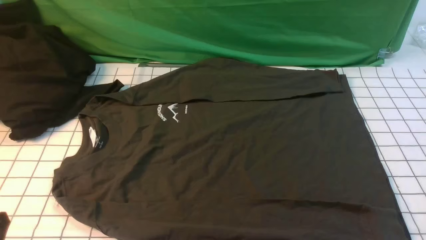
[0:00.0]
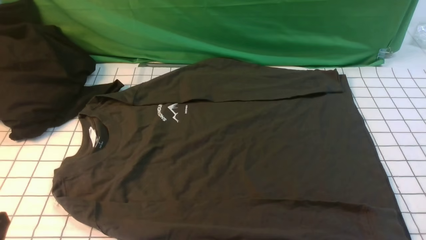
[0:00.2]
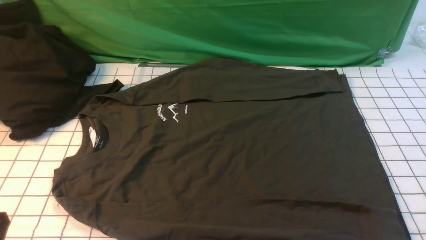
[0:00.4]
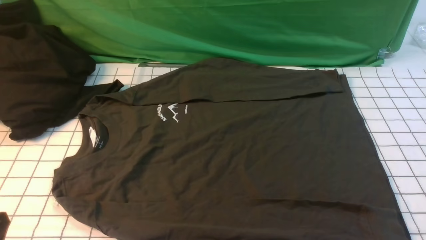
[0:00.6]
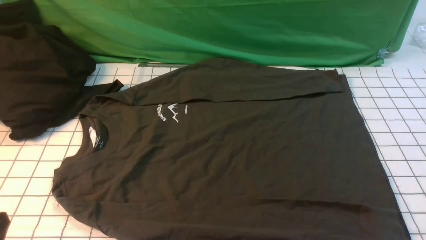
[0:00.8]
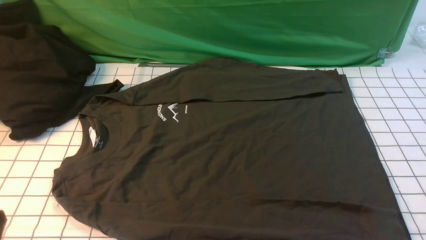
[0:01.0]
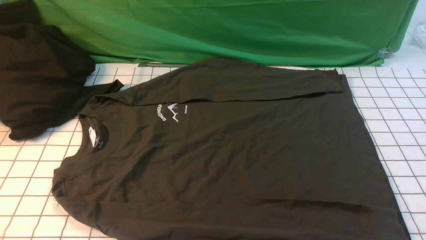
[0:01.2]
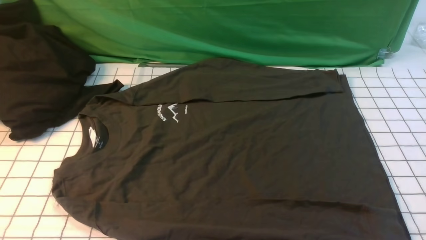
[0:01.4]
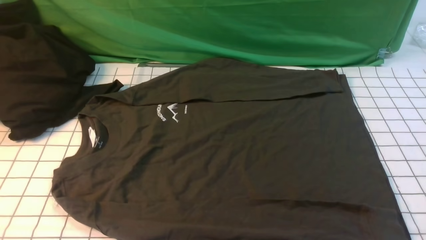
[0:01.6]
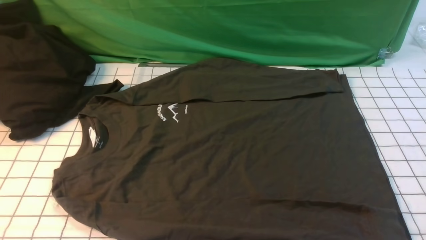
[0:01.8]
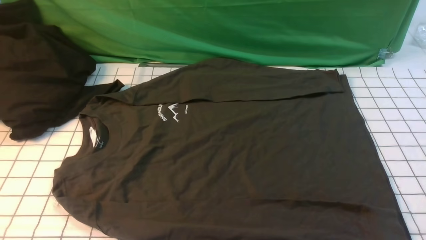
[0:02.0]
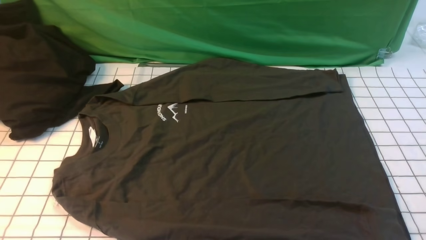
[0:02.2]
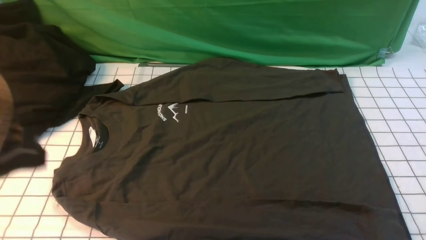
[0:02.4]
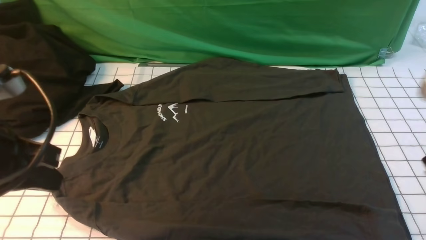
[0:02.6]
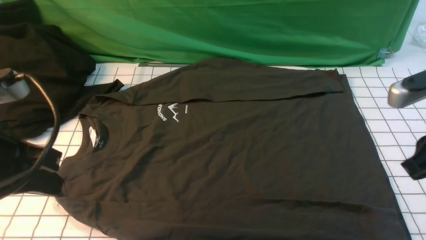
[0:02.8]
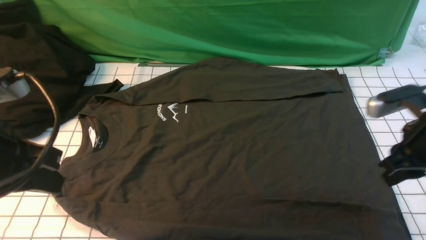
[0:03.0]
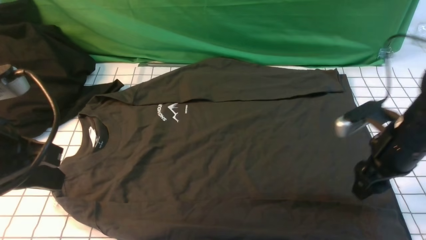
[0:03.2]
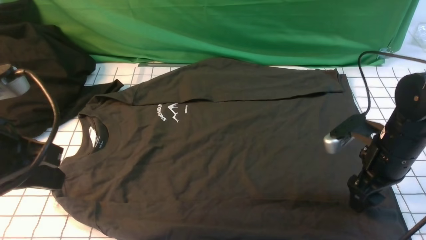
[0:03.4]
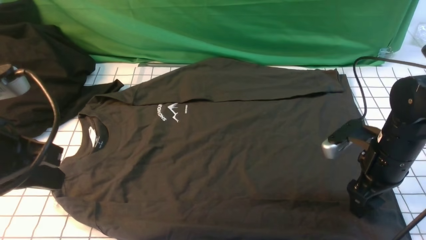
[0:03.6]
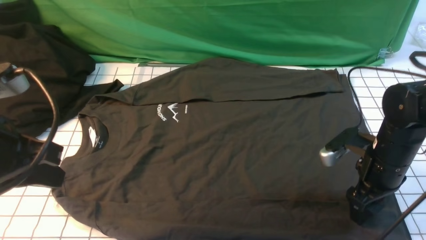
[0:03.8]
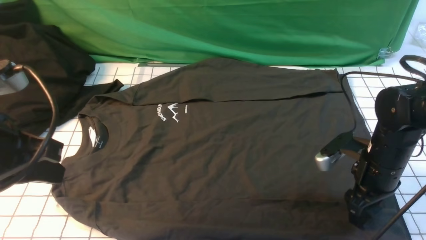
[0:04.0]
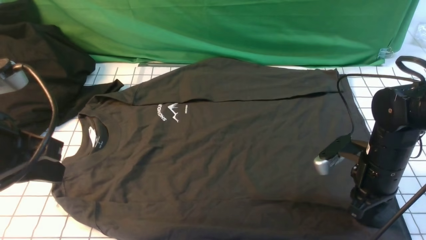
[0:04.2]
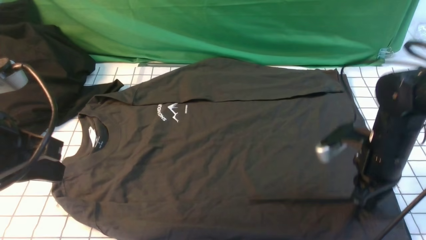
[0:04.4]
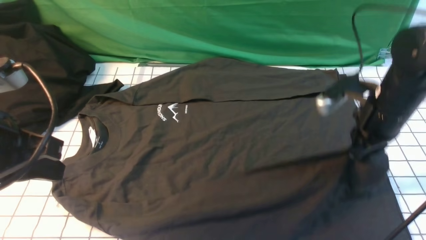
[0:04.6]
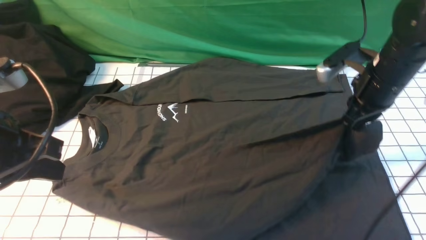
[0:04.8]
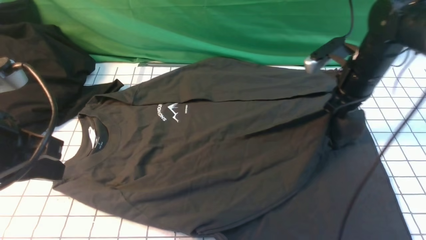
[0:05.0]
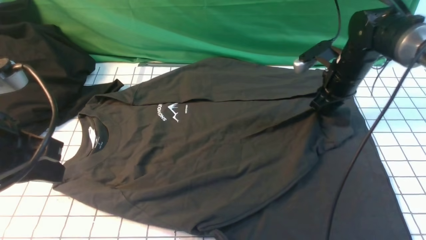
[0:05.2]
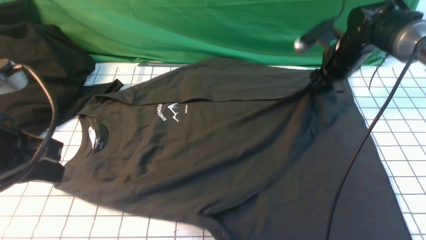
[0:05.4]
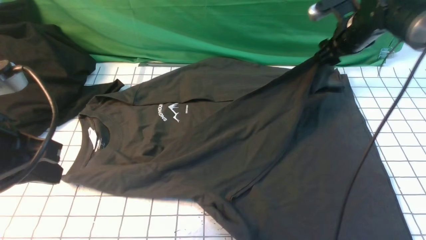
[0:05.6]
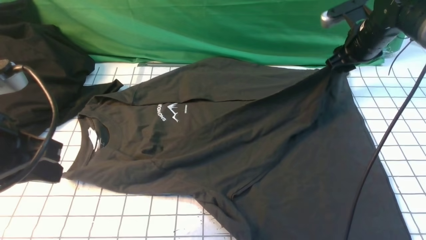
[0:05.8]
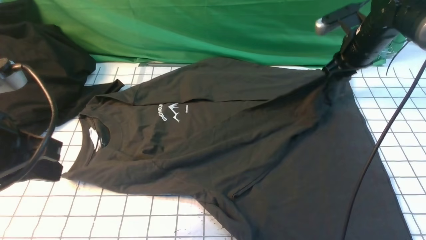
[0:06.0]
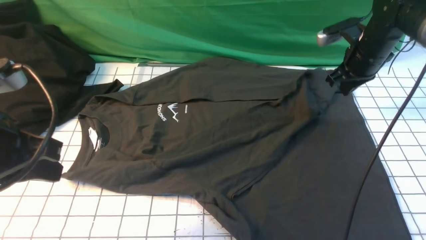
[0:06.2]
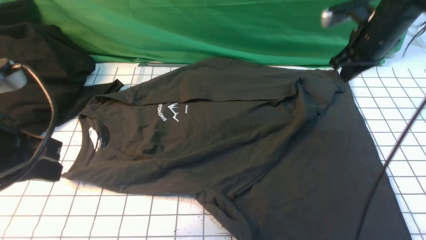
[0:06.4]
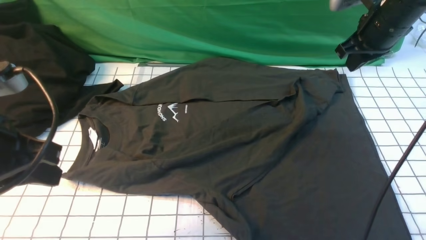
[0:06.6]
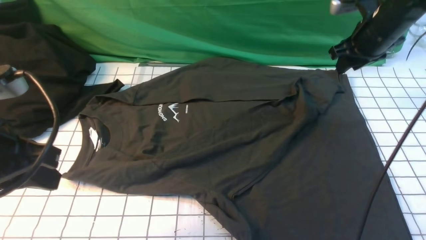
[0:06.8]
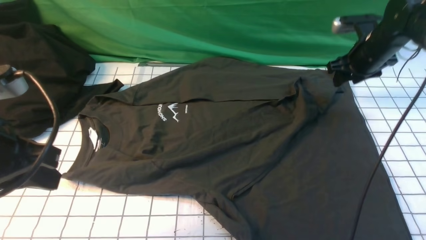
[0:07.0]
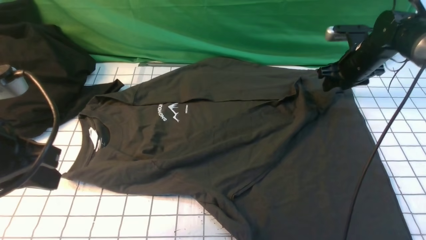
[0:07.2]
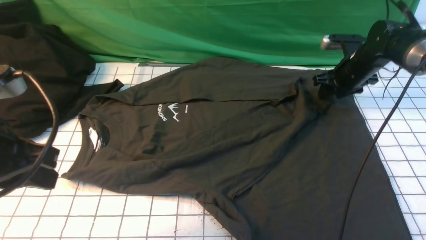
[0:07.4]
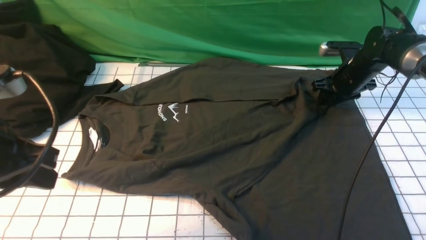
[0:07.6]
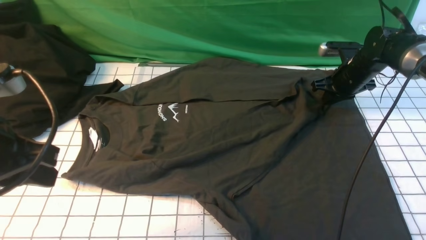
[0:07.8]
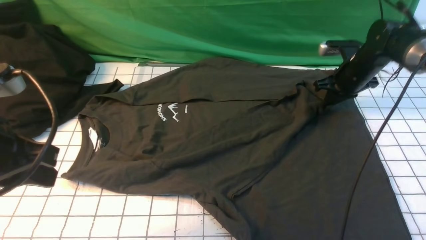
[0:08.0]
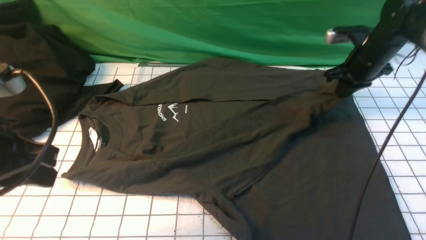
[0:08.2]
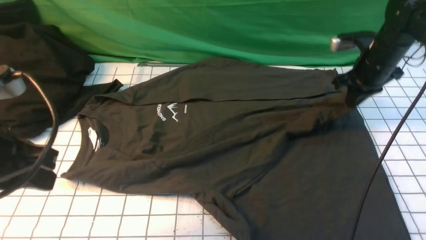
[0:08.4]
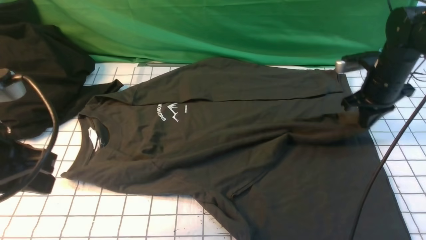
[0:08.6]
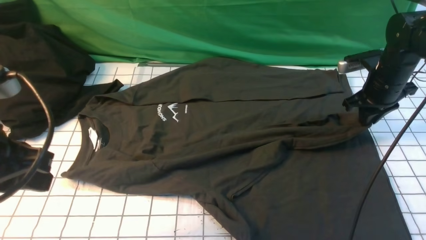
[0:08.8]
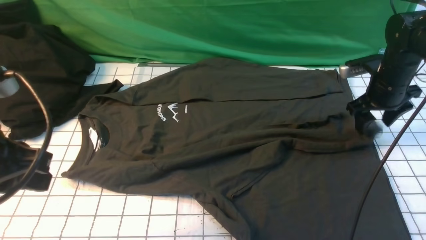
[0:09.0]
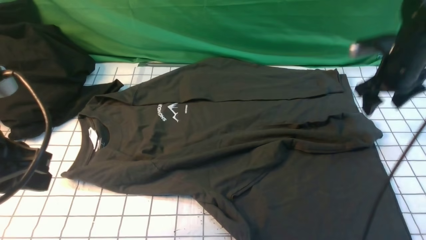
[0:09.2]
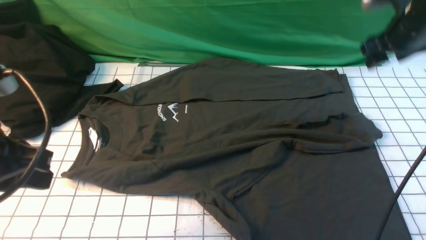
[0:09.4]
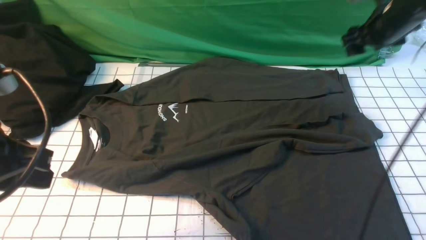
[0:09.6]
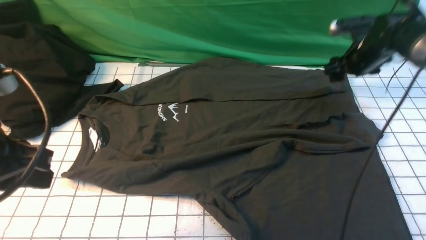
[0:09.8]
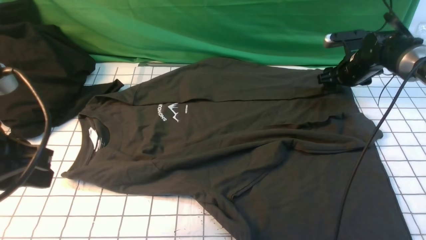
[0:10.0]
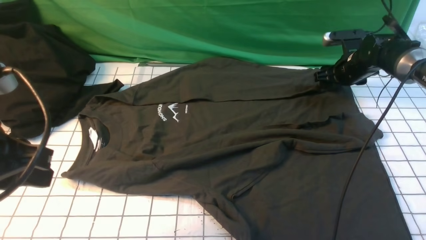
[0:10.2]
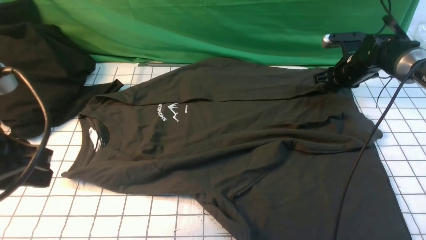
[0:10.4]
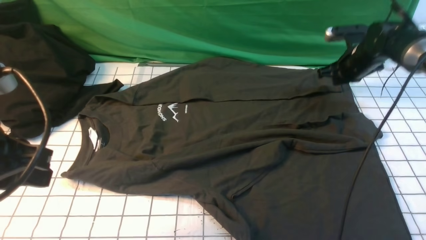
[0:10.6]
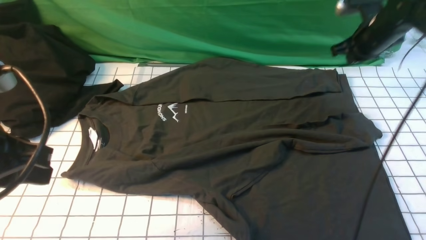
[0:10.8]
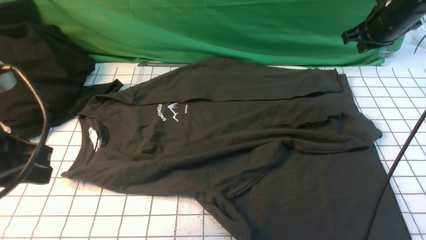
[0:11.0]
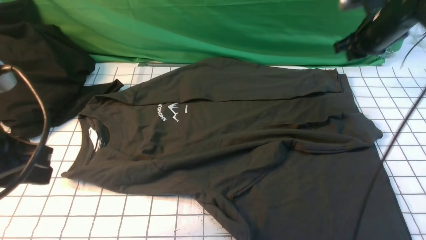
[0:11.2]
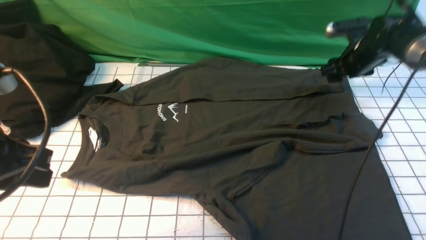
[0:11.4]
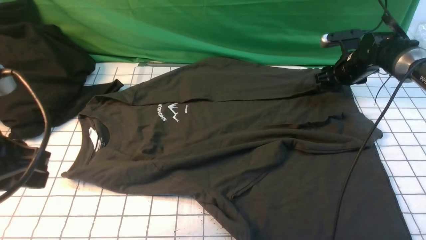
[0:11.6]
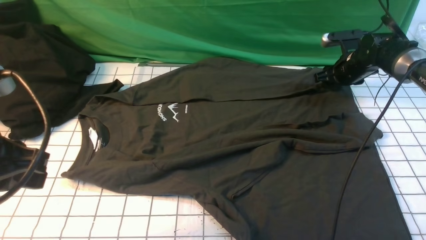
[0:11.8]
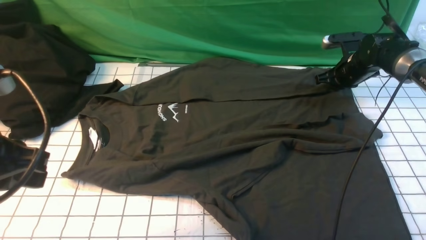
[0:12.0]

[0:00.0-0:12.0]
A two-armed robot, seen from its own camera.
Step, 0:00.0 to 0:04.4: Use your right arm to clamp the cuff closest to him.
Step, 0:04.6 to 0:06.4: use the right arm to drag and place the cuff at thecentered position on the left edge of the fabric.
0:01.6 to 0:03.0: The left gripper moves forward and upward, some 15 cm. Meanwhile the right gripper travels forward by approximately 25 cm, and closes and opens again.
0:03.0 to 0:04.4: The right gripper moves approximately 5 cm, and opens and closes again.
0:04.4 to 0:06.0: The right gripper travels forward by approximately 20 cm, and opens, then closes once more.
0:06.0 to 0:07.6: The right gripper heads downward, covering approximately 10 cm.
0:07.6 to 0:09.0: The right gripper heads backward and upward, covering some 10 cm, and opens.
0:09.0 to 0:10.4: The right gripper travels forward and downward by roughly 10 cm, and closes.
0:10.4 to 0:12.0: The right gripper travels upward and back again, some 10 cm each way, and opens, then closes again.

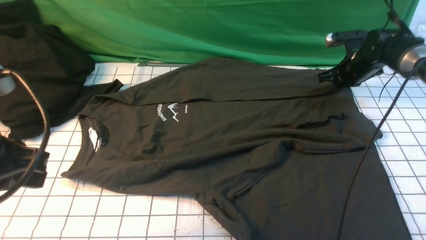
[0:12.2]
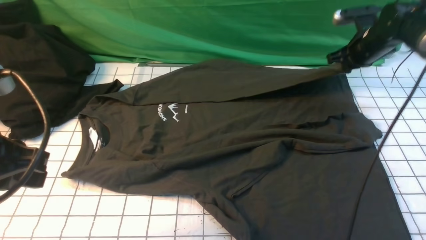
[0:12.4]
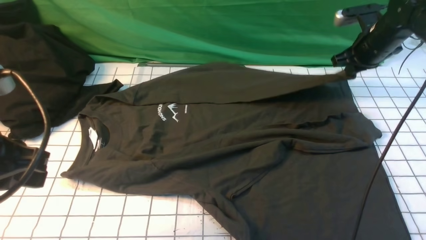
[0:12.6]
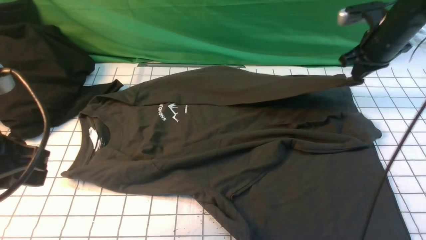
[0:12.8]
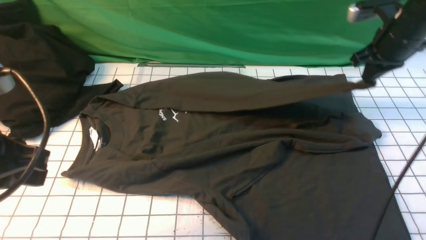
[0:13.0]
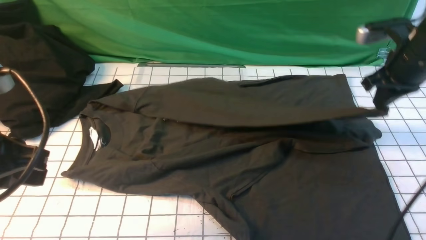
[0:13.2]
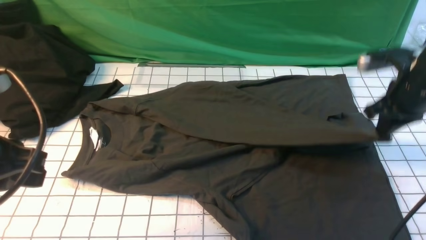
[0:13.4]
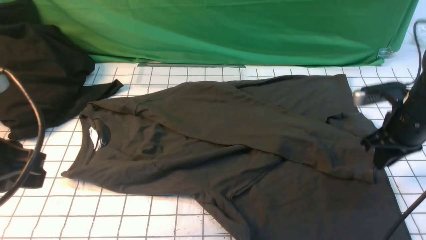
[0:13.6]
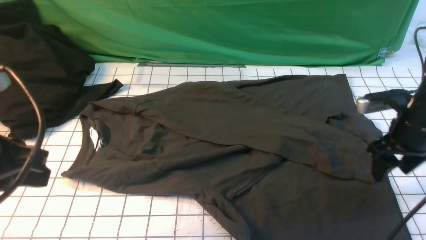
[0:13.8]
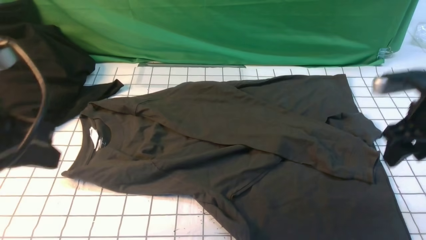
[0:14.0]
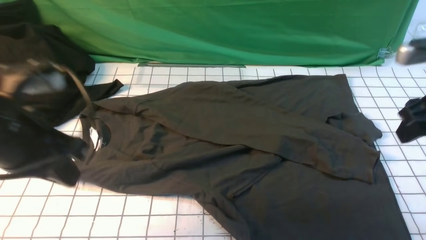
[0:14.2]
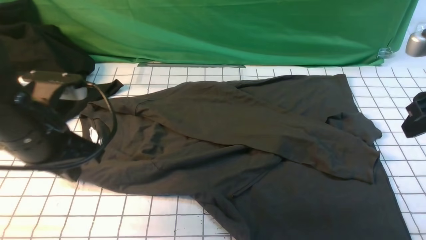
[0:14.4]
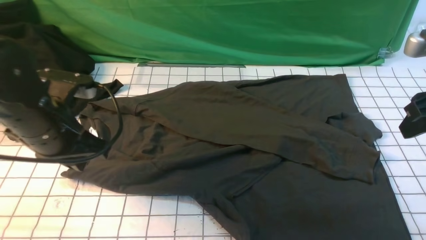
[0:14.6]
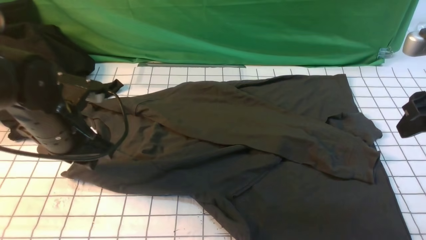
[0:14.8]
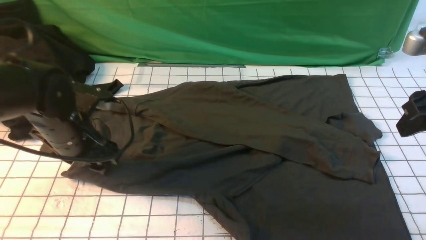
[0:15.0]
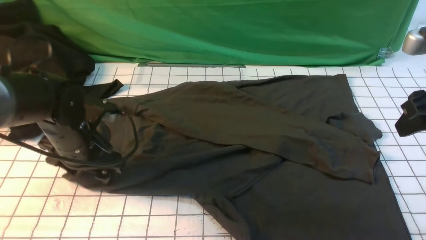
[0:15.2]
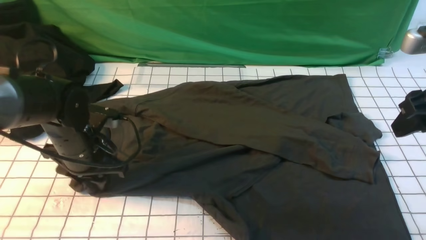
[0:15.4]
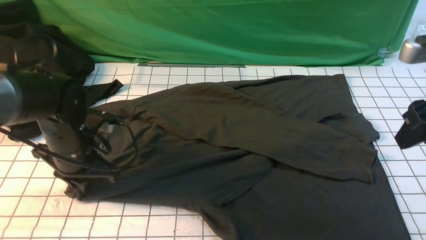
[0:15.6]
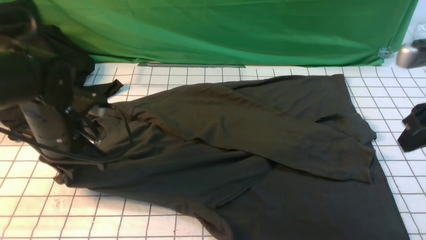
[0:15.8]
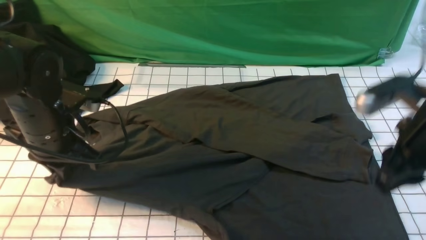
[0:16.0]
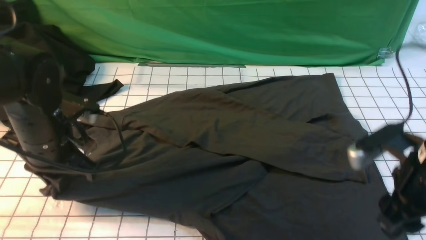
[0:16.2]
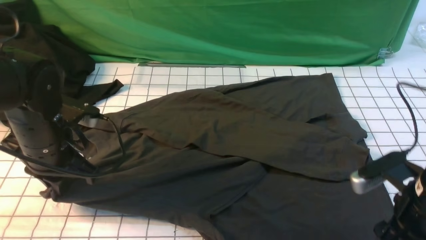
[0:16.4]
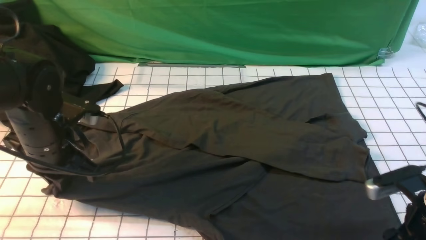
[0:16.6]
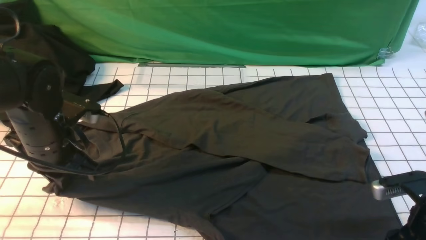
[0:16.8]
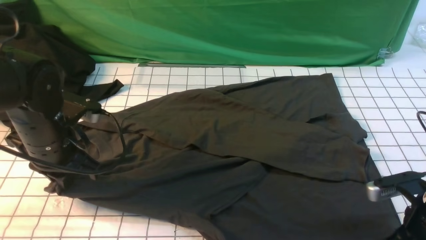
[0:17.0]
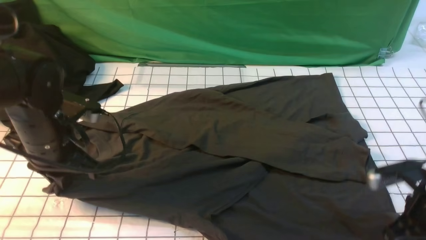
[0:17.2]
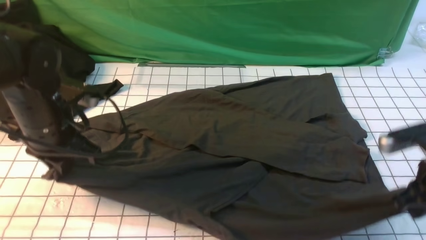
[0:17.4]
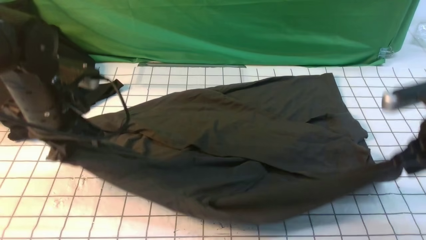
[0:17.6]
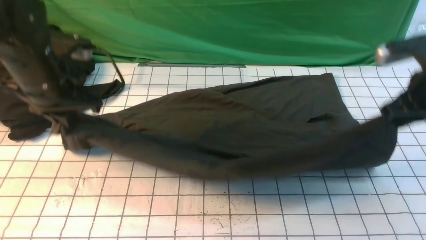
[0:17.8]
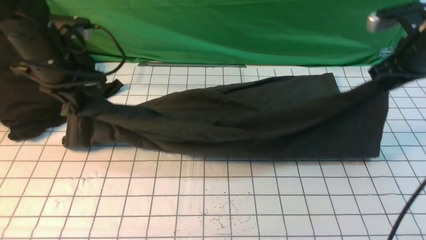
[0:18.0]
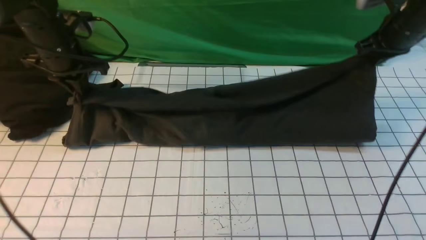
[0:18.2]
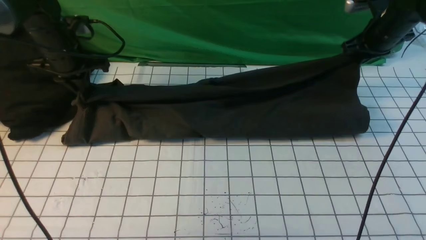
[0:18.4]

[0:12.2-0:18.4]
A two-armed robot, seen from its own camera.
Step, 0:12.6 to 0:13.8: use the right arm to drag and drop the cuff onto the cuffclosest to the right arm.
Step, 0:14.0 to 0:17.4: use both arms simultaneously to clamp the lower edge of the clothing fabric.
0:12.2 to 0:13.8: The right gripper goes about 20 cm backward, and opens.
0:13.8 to 0:15.4: The right gripper heads upward and backward, covering some 10 cm. Meanwhile the left gripper is displaced downward and forward by about 25 cm, and opens its fingers.
0:15.4 to 0:16.8: The right gripper heads downward, covering approximately 20 cm. Meanwhile the left gripper goes some 5 cm upward, and closes up.
0:16.8 to 0:18.4: The left gripper moves forward, approximately 20 cm, while the right gripper goes approximately 30 cm forward, and closes up.
